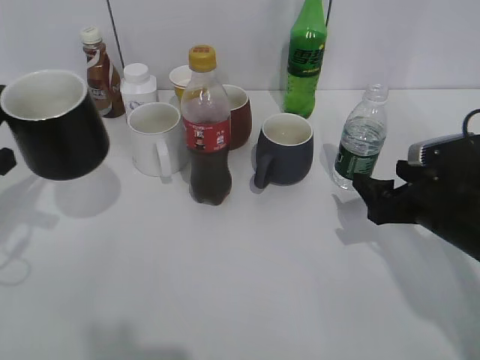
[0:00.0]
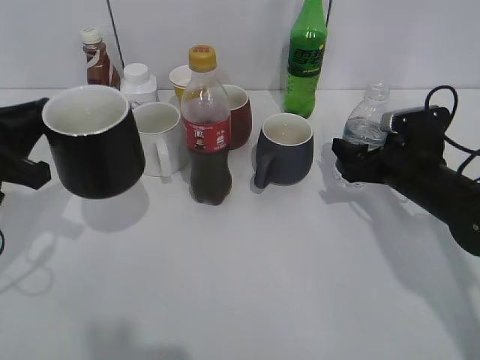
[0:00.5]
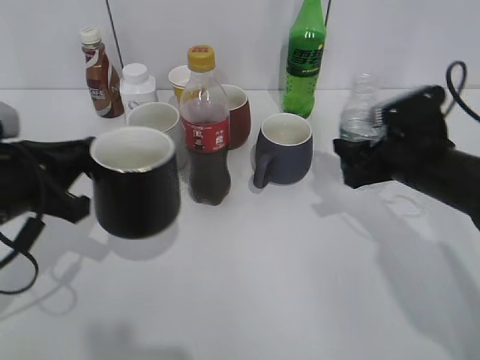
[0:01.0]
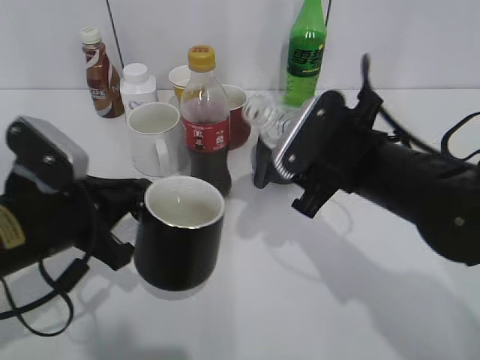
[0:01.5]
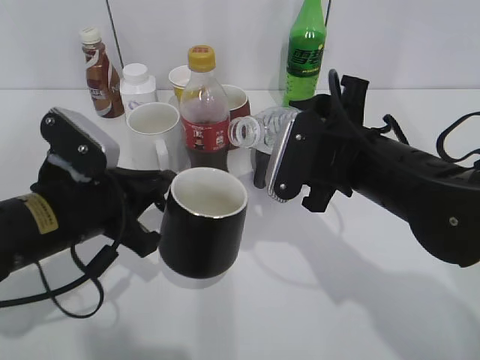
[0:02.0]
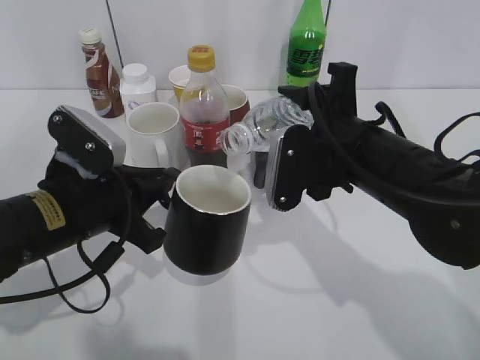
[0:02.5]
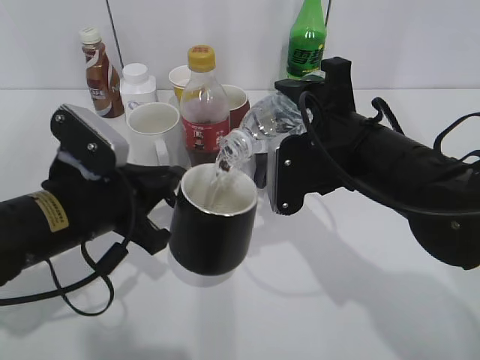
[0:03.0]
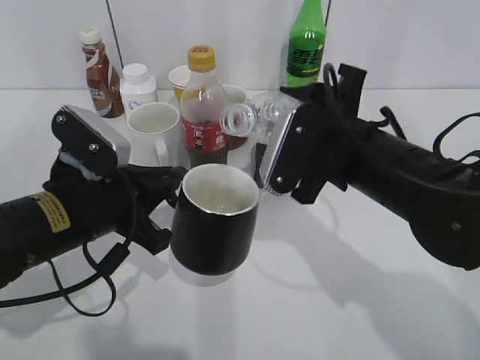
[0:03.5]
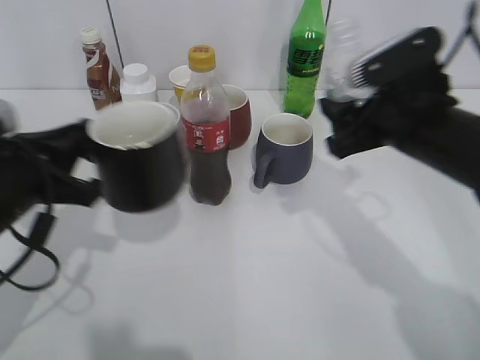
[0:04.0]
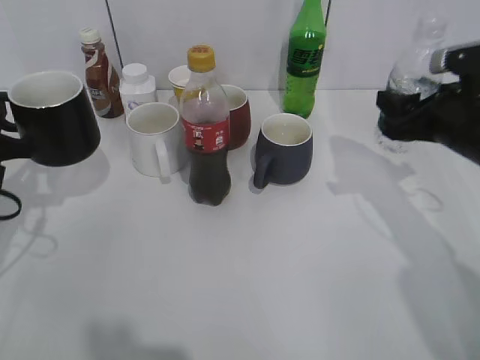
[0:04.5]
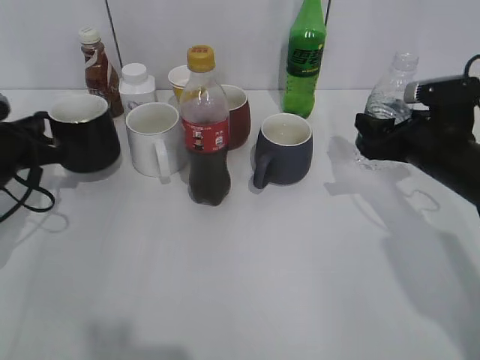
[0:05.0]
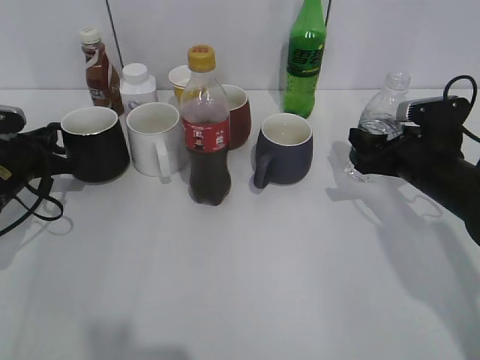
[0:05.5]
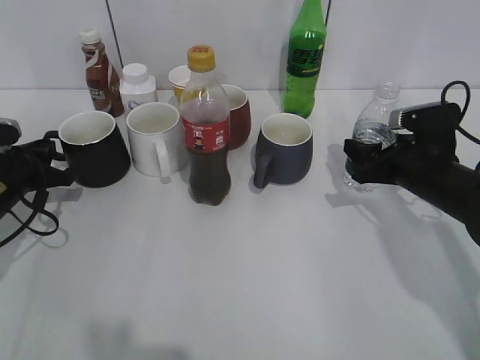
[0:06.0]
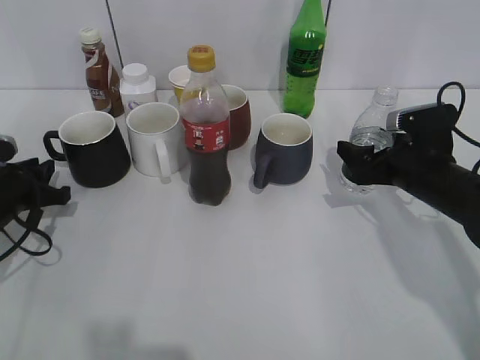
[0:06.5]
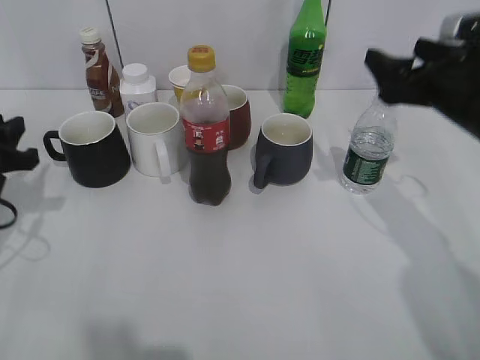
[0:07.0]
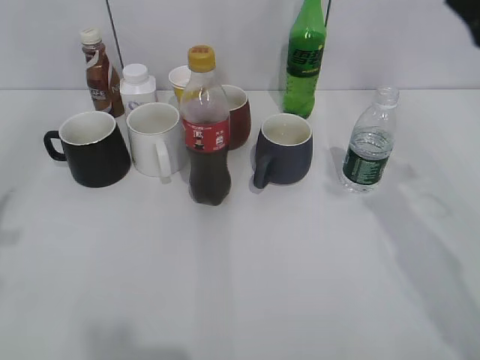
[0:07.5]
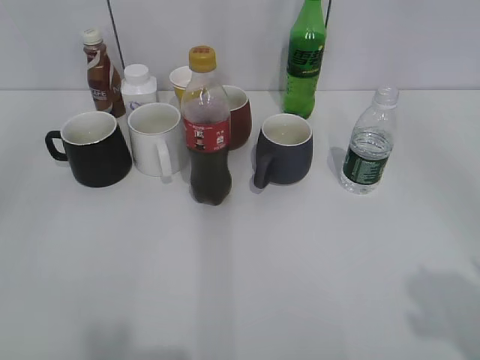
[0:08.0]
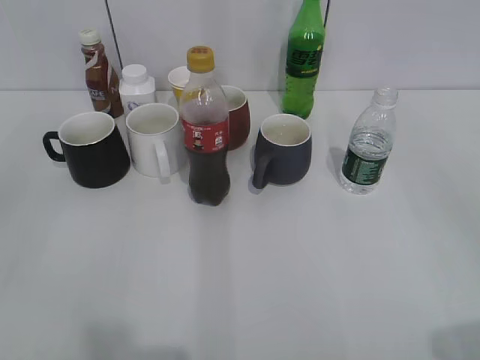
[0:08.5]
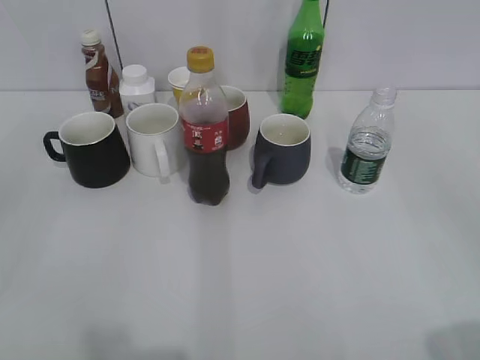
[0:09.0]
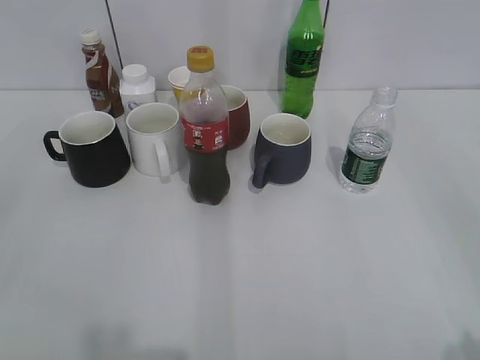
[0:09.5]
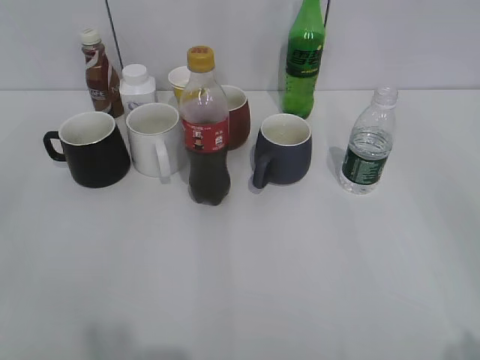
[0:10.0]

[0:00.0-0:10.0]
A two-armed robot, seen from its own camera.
Step, 0:01.0 to 0:03.5: Pour the water from bottle to cup with right gripper.
Step, 0:04.0 to 0:06.5: Place the water bottle on the table with right gripper.
0:00.0 to 0:02.0: The left gripper goes about 15 cm to the right. The right gripper heads to the left and upward, covering approximately 15 cm, and closes up.
0:02.0 to 0:04.0: The left gripper changes place by some 5 cm. Meanwhile the right gripper moves to the right, roughly 5 cm.
0:04.0 to 0:06.0: The left gripper goes approximately 20 cm forward, downward and to the left; the right gripper is displaced downward and to the right by roughly 15 cm.
0:06.0 to 0:08.0: The two grippers go about 35 cm backward and upward. The right gripper opens, while the left gripper opens.
0:08.0 to 0:10.0: The left gripper changes place by roughly 5 cm, while the right gripper travels backward and downward by some 10 cm.
